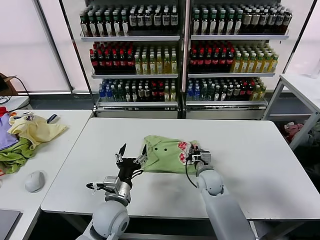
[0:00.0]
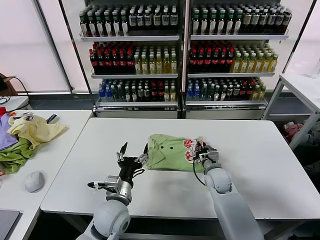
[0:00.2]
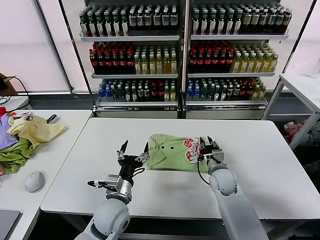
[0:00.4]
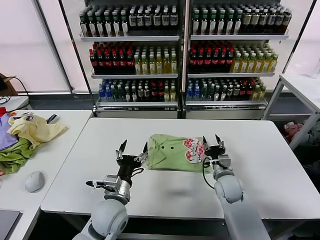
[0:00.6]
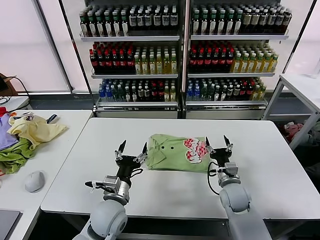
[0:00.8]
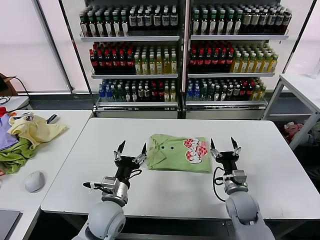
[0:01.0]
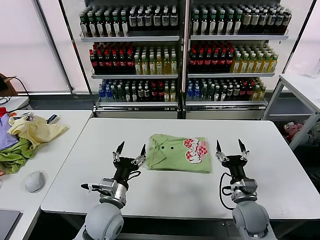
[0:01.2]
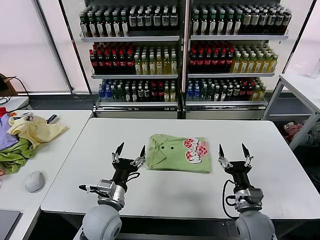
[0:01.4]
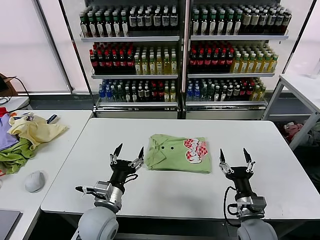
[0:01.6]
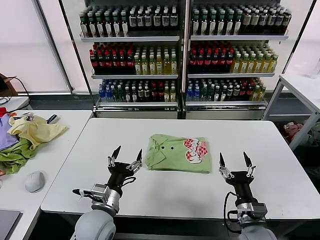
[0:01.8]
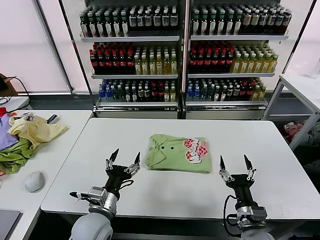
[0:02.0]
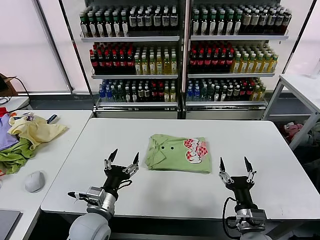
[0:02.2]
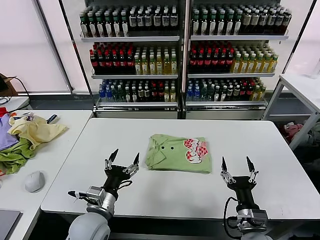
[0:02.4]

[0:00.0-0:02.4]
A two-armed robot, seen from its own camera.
Task of the whole recording: fold and organize the clothes.
0:00.0 to 0:01.2: The right gripper moves backward and to the right, roughly 15 cm, and opens up.
0:01.2 to 0:02.4: The right gripper travels backward by some 10 cm.
